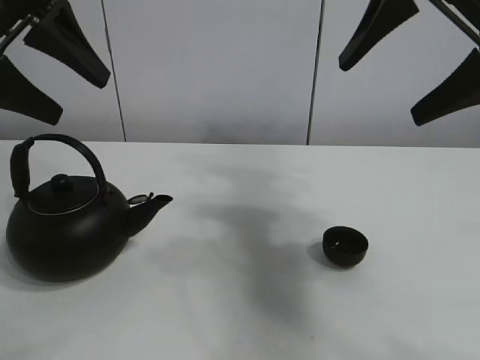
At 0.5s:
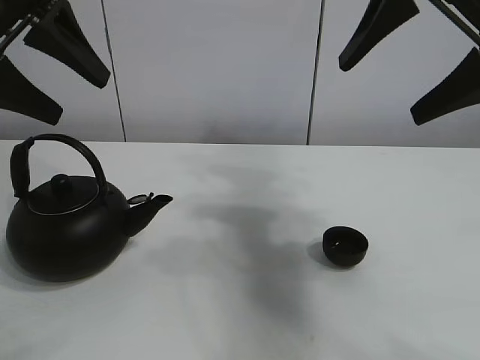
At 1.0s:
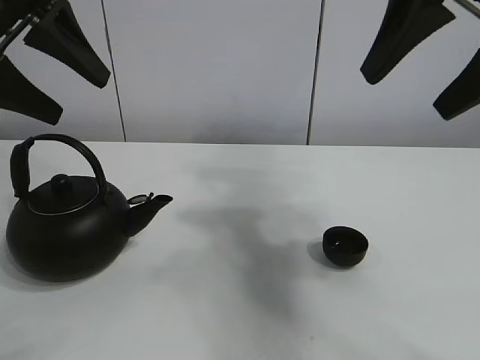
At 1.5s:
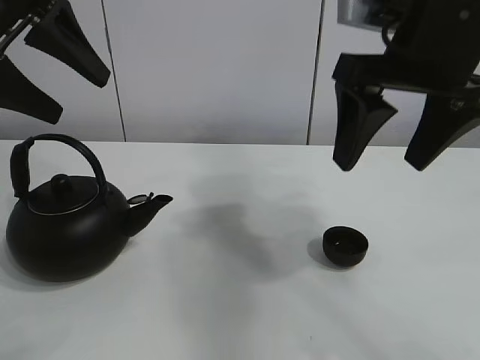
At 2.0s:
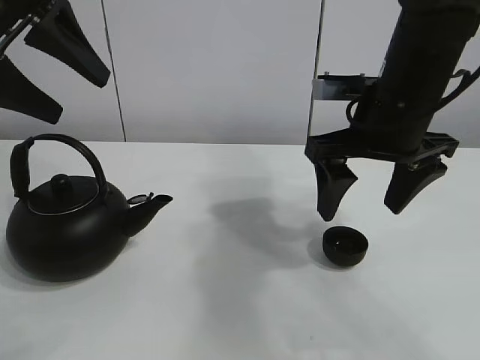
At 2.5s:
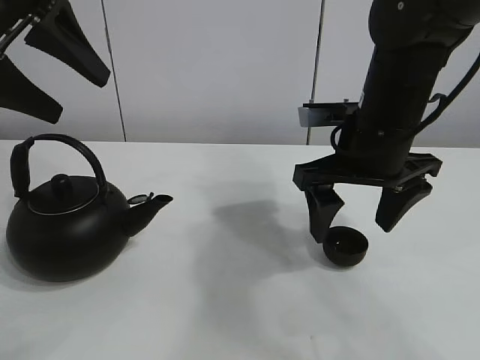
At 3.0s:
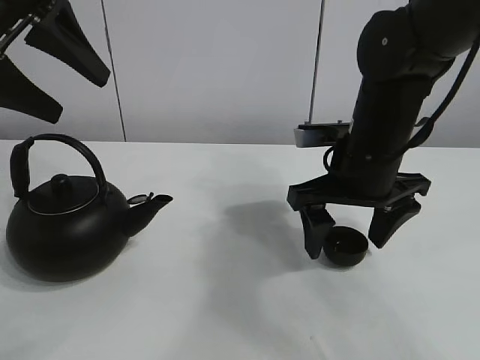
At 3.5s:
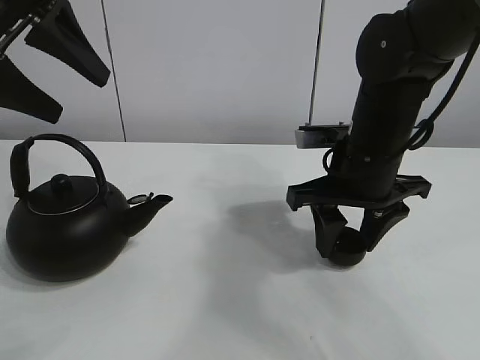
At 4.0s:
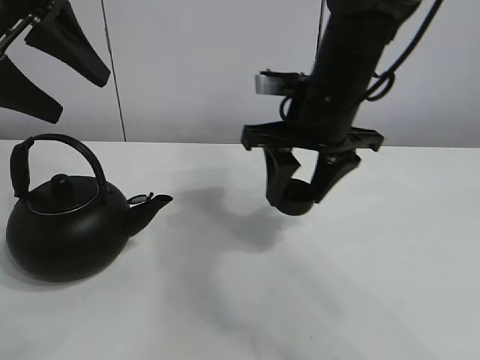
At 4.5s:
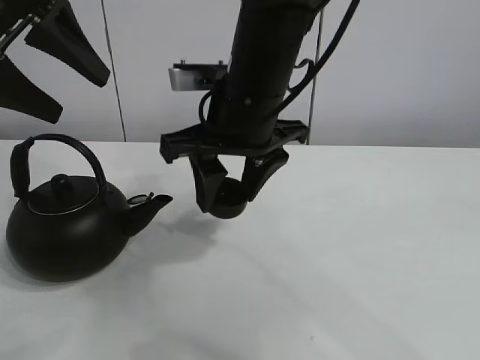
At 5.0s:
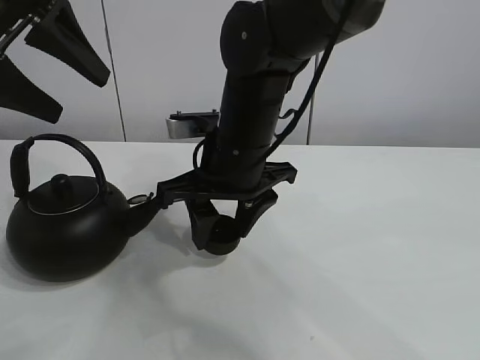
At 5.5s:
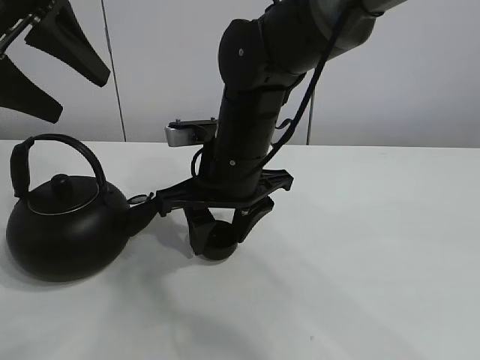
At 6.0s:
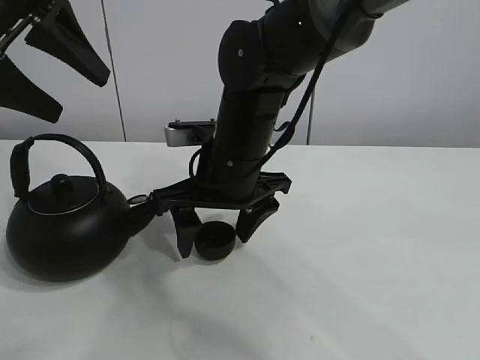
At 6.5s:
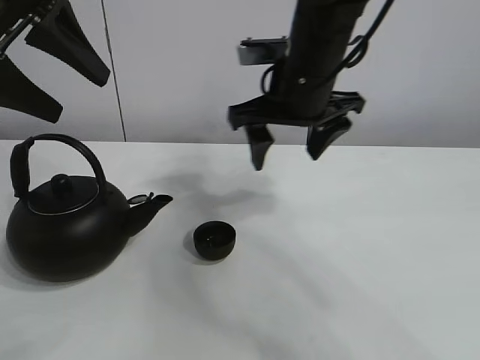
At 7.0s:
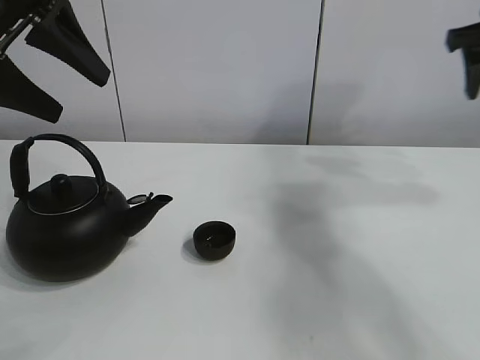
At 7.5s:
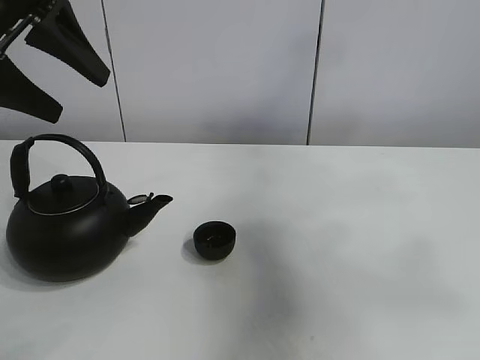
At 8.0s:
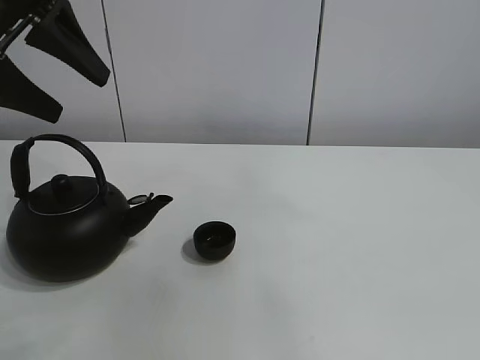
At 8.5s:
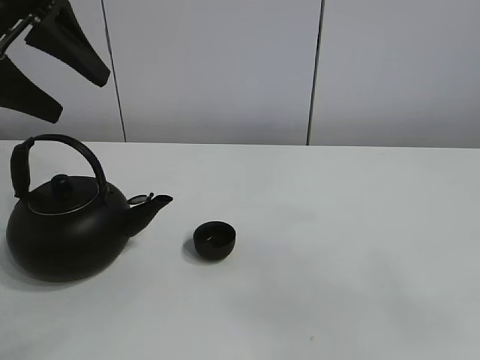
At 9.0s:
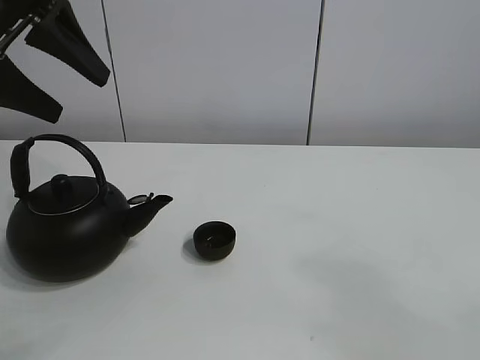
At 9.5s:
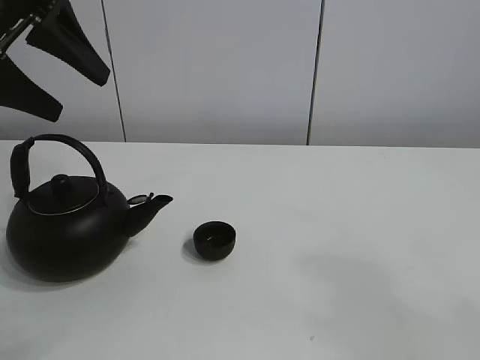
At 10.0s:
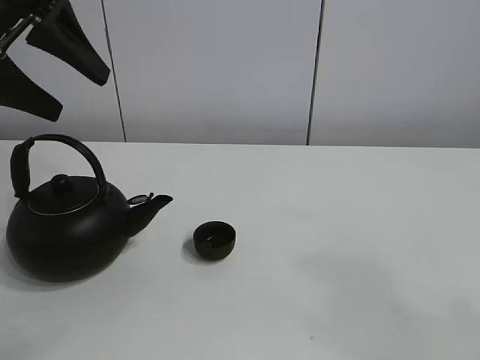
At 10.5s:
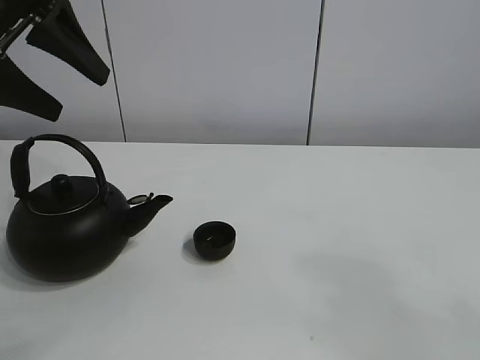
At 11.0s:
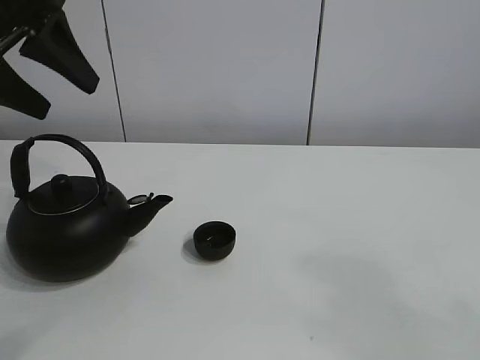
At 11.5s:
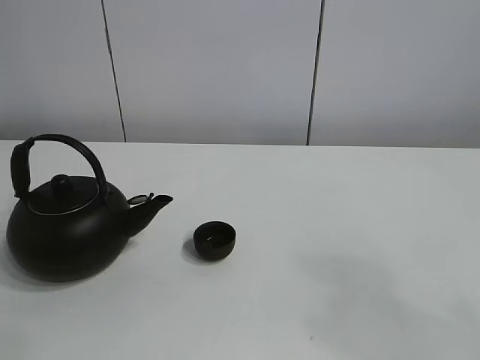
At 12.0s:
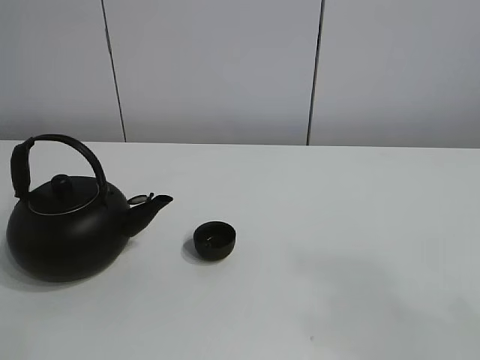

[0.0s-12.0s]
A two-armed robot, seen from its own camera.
Task of the whole recording: pour tea into the teacup.
Step, 0.0s to 3.5s: Pick up the teacup with the right gripper.
Step, 4.0s to 5.5s: Place the teacup in the center of view with the right gripper.
2.0s to 4.0s: The right gripper travels to the left by about 5 cm, and closes.
4.0s to 6.0s: The right gripper goes approximately 10 cm to the left and downward, and opens up.
6.0s to 8.0s: The right gripper travels backward, upward and to the right by roughly 60 cm.
8.0s to 10.0s: The right gripper shifts approximately 25 cm downward.
10.0s to 12.0s: The left gripper shifts about 15 cm backward.

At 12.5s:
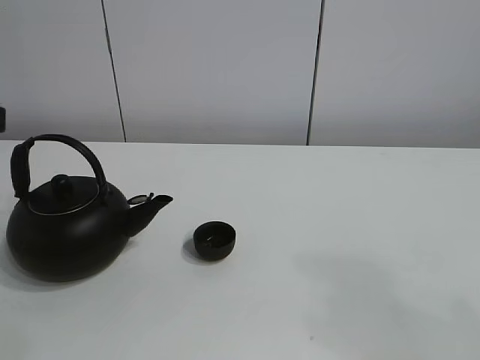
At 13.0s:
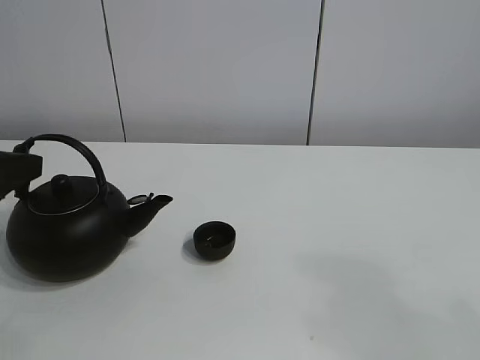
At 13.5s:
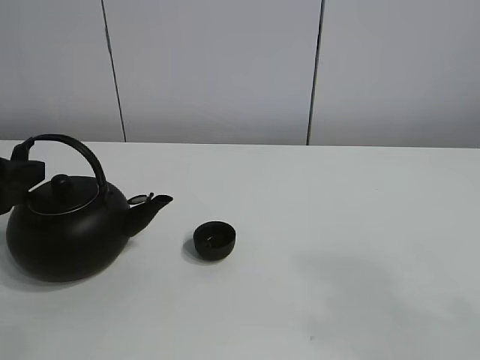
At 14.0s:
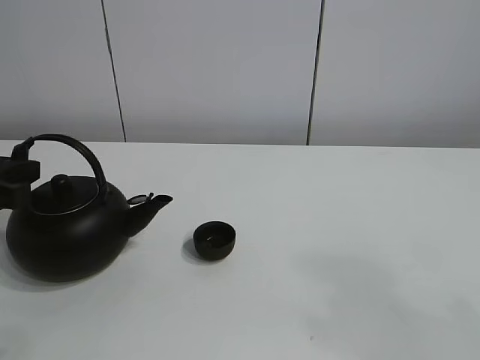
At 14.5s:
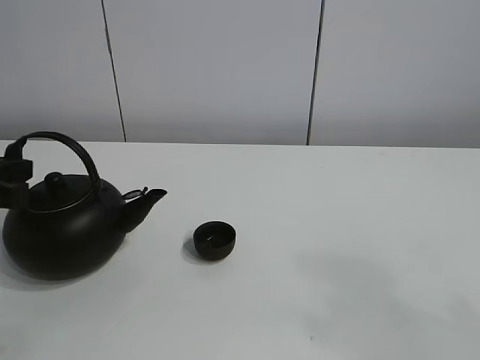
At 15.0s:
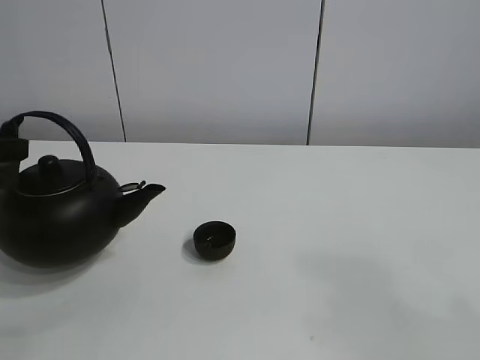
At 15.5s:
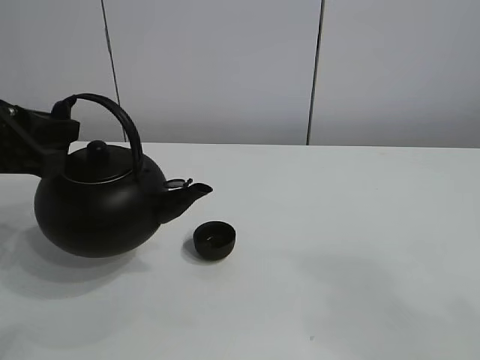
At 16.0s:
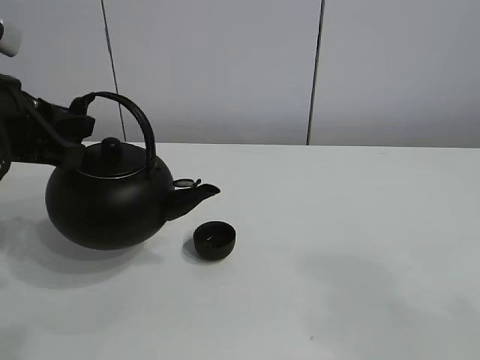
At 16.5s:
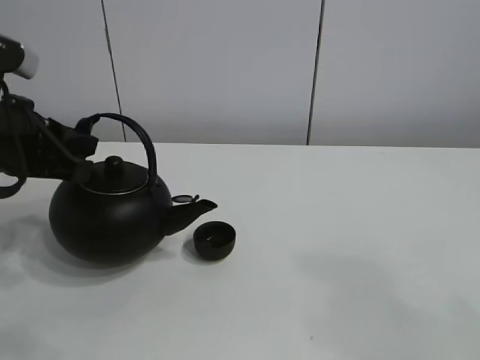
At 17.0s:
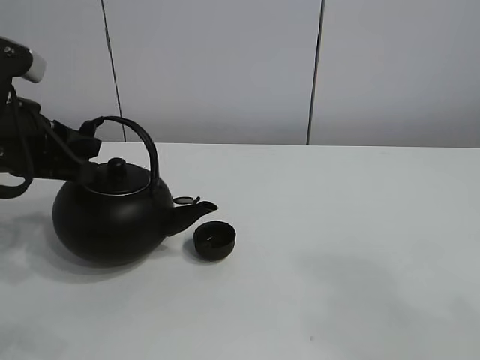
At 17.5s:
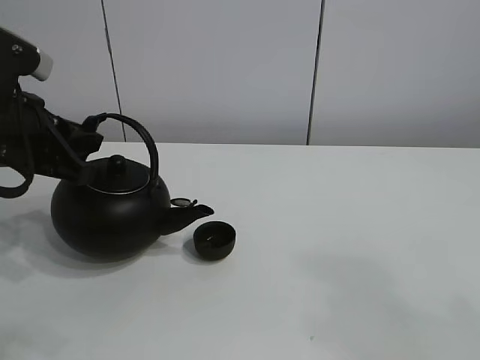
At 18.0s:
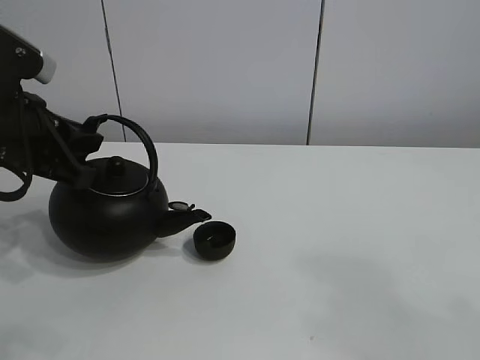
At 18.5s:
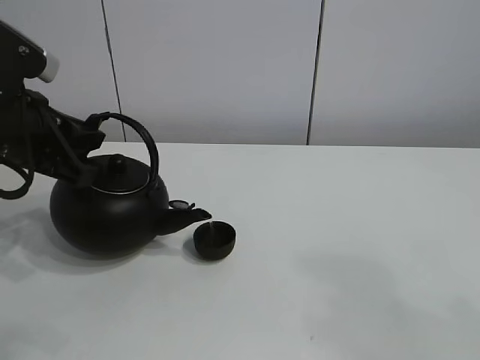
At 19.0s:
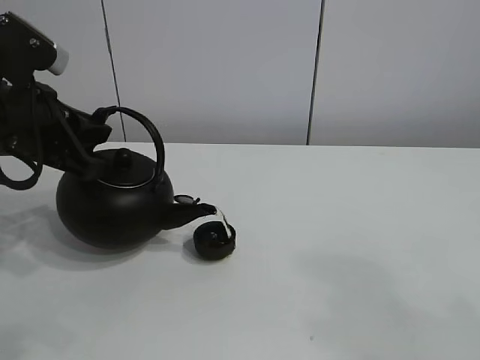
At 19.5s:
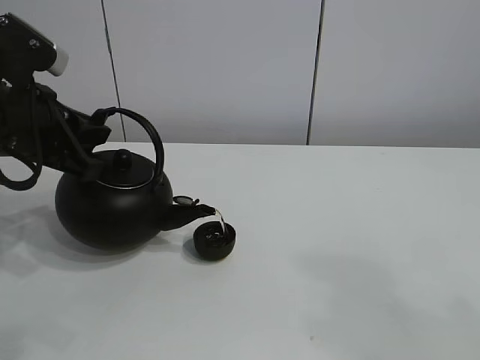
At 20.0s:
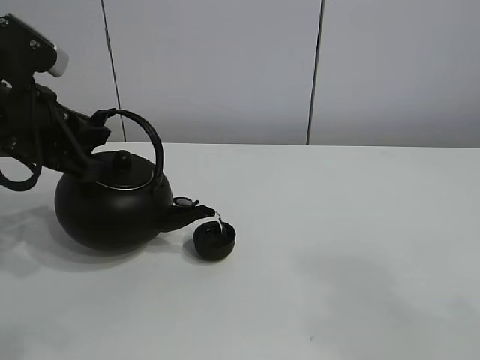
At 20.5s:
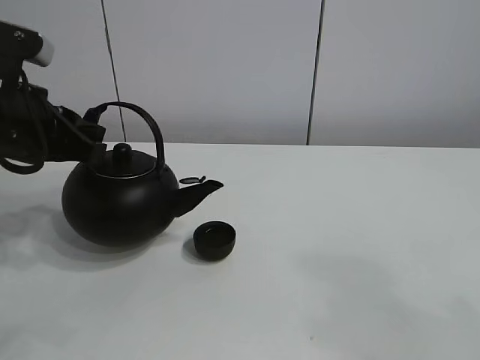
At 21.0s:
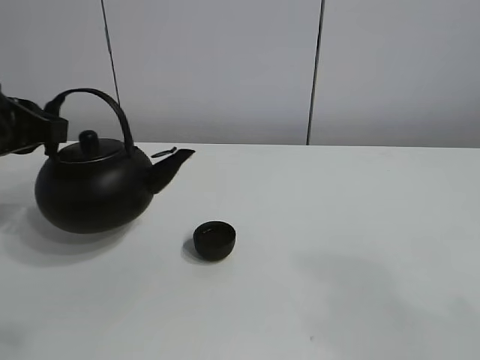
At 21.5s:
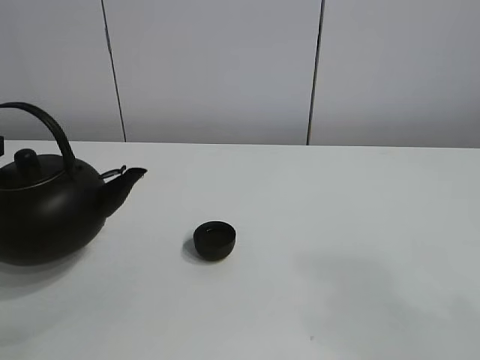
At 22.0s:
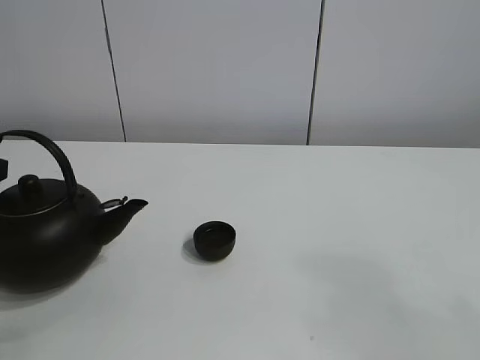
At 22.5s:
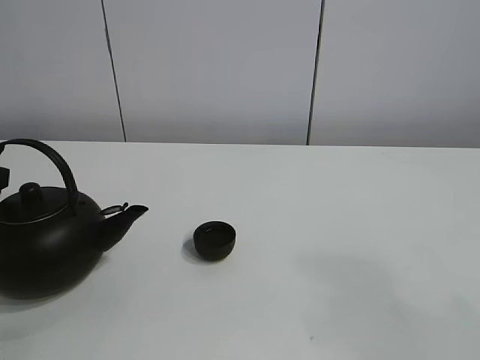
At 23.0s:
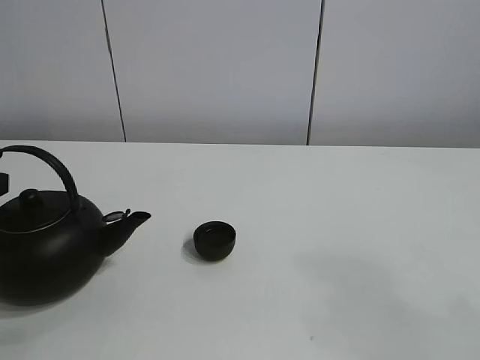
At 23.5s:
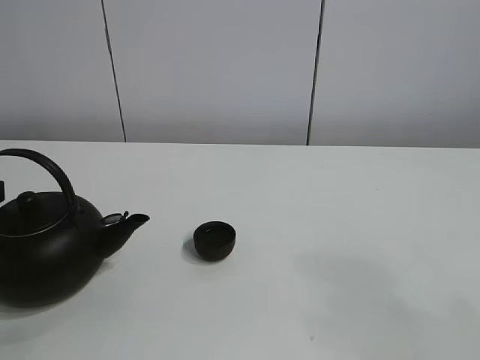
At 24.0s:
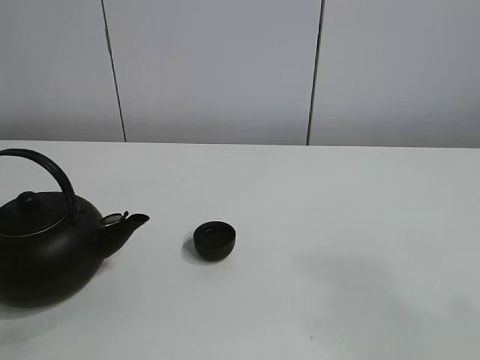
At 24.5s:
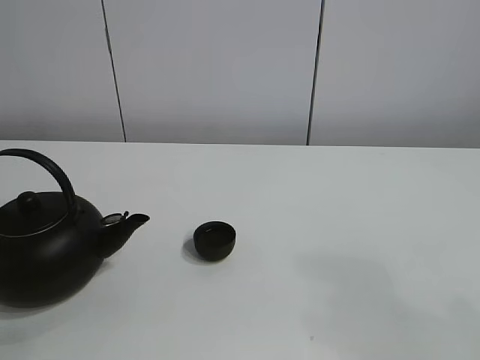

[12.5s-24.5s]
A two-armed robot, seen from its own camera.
Task of the whole recording: pour tea into the teacup.
Step, 12.5s to 14.5s: Pick up the teapot with the left gripper.
Step, 15.0s to 20.0s: Pour tea into the teacup with the left gripper.
12.5s to 14.5s: The left gripper heads downward and forward, covering roughly 10 cm, and closes its fingers.
14.5s to 16.5s: The left gripper goes approximately 5 cm to the right.
16.5s to 20.5s: The grippers stay close to where they were, moving slightly.
20.5s to 22.5s: The left gripper shifts about 10 cm to the left and backward.
22.5s to 24.5s: The left gripper opens its fingers.

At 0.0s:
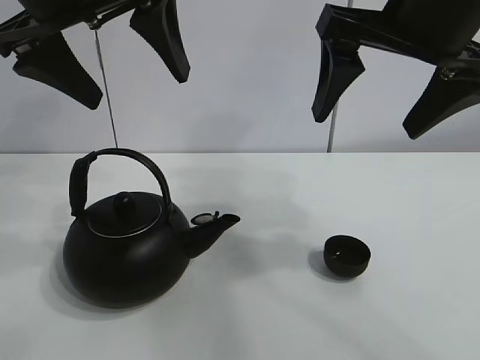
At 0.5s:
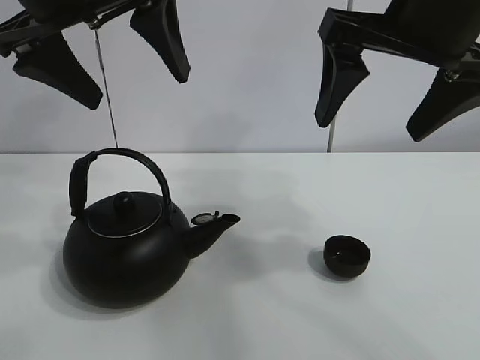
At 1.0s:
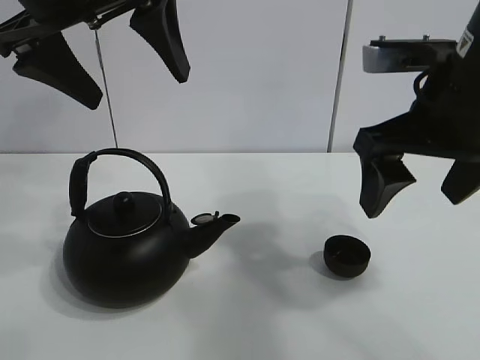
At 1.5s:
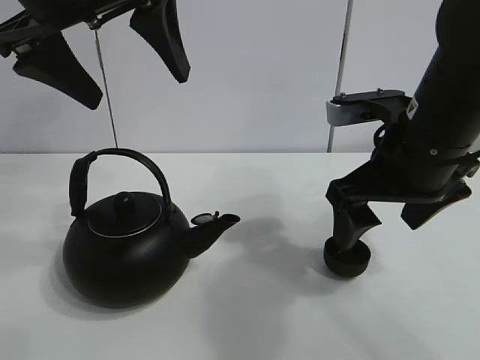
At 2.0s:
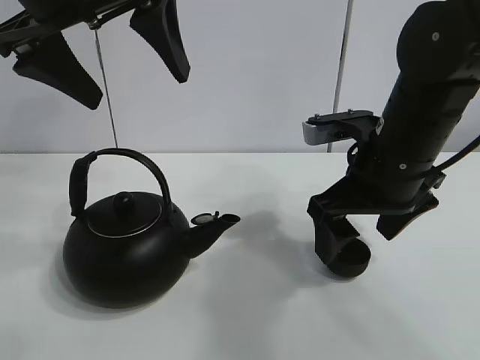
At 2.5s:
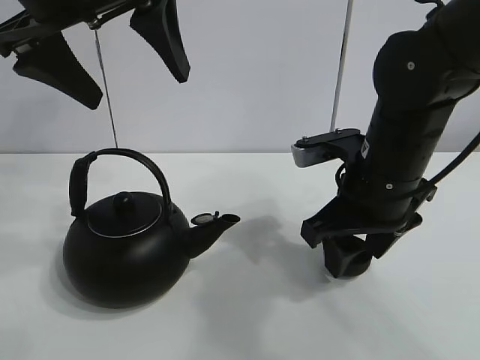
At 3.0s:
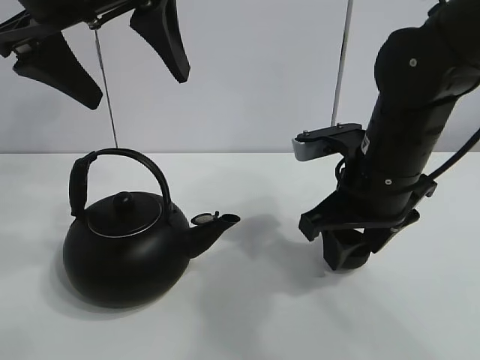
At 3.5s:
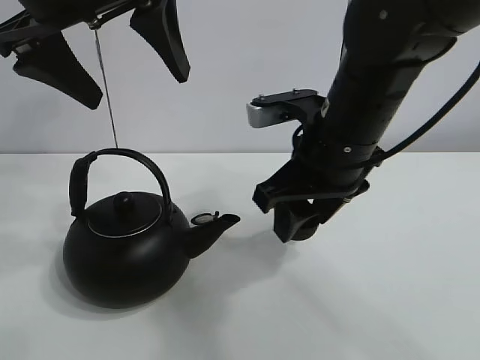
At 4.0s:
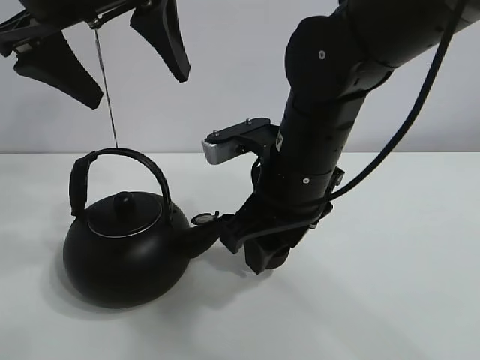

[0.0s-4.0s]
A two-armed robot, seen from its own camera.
Task of the whole recording: pour tea into the teacup.
Step, 0.0s to 2.5s: Pick up the teacup with the right gripper.
2.0s to 4.0s: The right gripper goes some 10 cm to the left, and closes.
